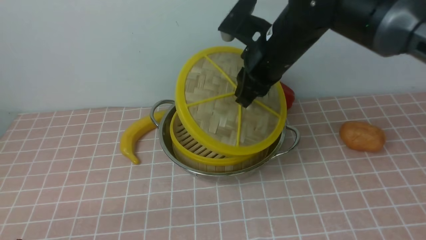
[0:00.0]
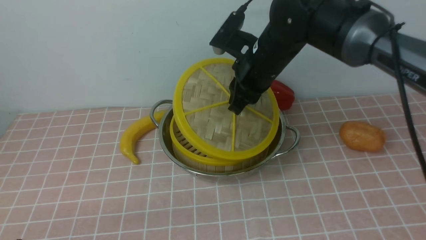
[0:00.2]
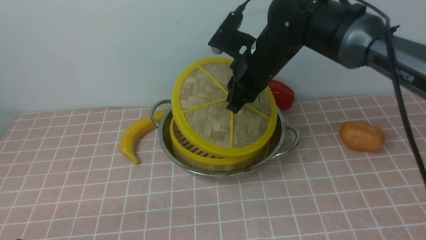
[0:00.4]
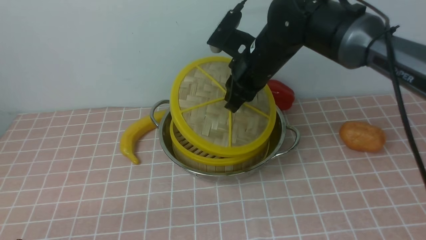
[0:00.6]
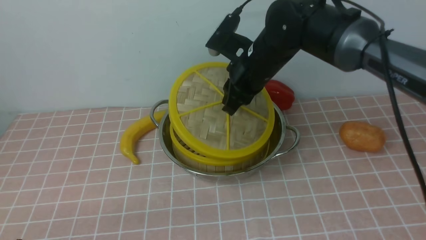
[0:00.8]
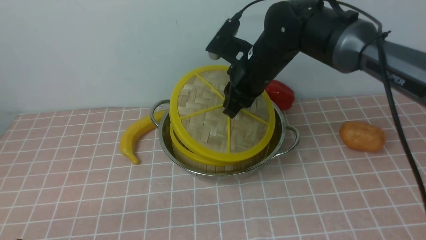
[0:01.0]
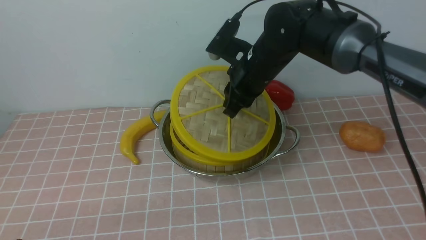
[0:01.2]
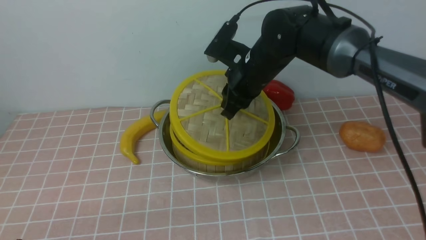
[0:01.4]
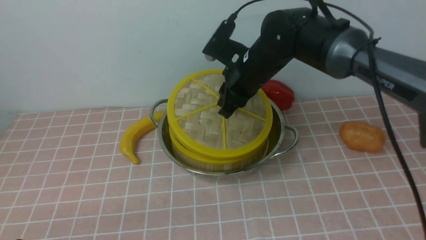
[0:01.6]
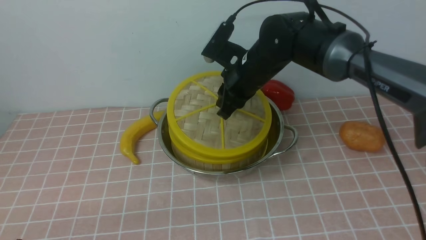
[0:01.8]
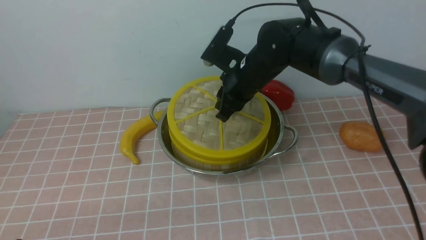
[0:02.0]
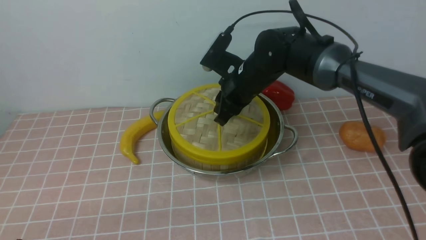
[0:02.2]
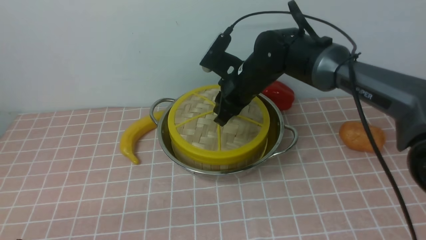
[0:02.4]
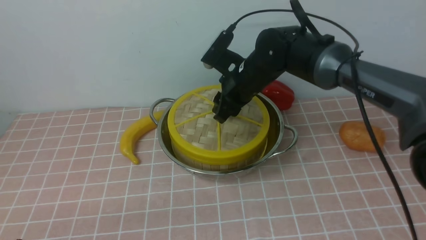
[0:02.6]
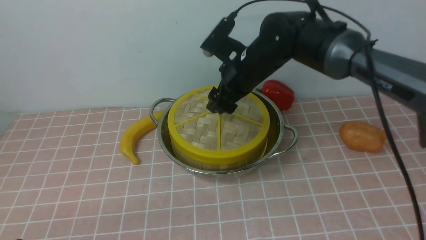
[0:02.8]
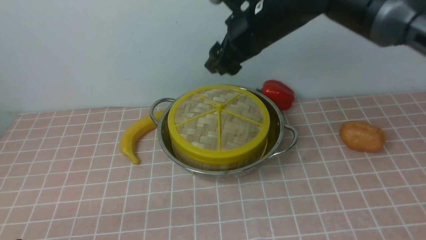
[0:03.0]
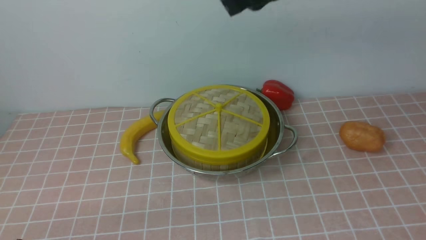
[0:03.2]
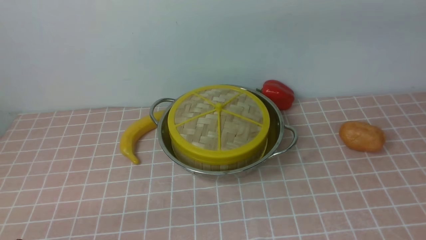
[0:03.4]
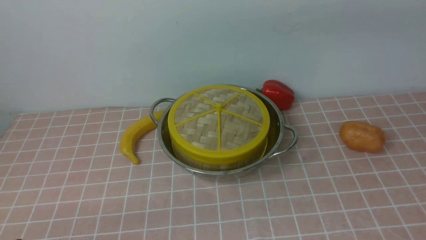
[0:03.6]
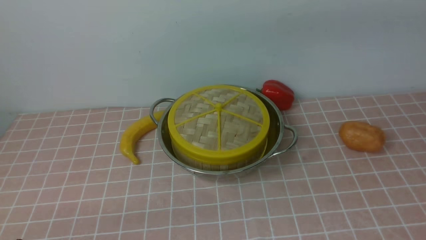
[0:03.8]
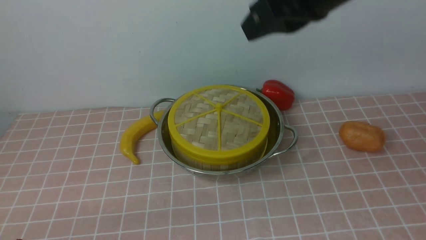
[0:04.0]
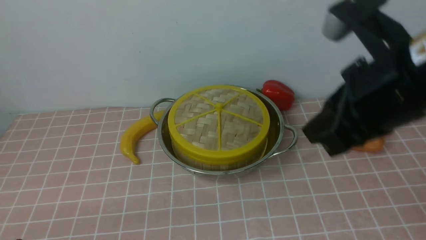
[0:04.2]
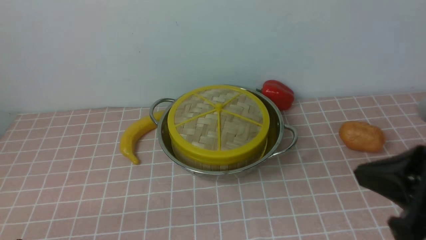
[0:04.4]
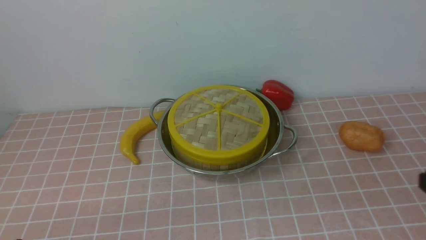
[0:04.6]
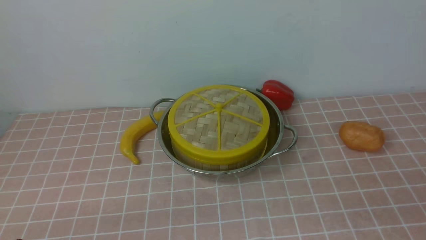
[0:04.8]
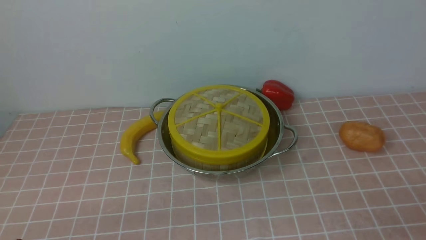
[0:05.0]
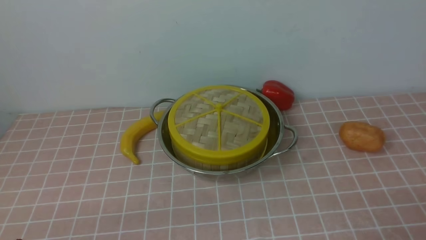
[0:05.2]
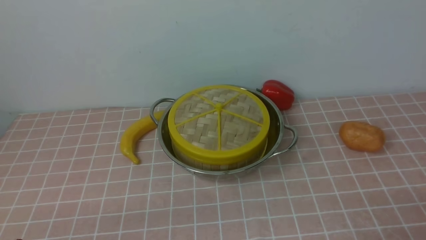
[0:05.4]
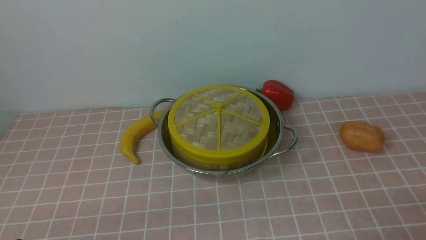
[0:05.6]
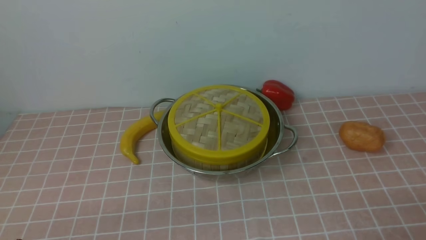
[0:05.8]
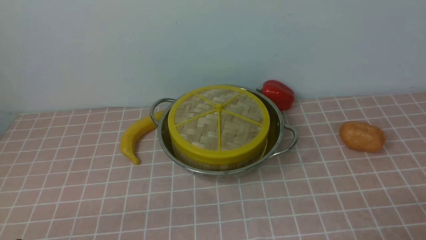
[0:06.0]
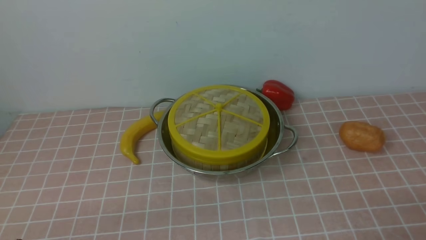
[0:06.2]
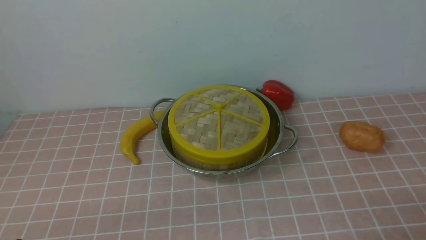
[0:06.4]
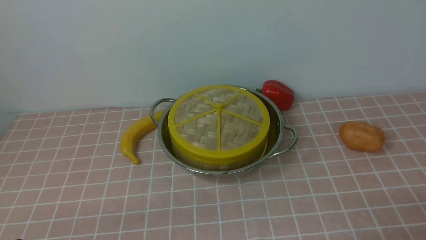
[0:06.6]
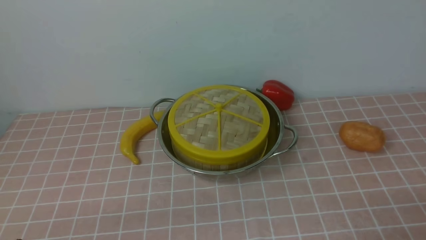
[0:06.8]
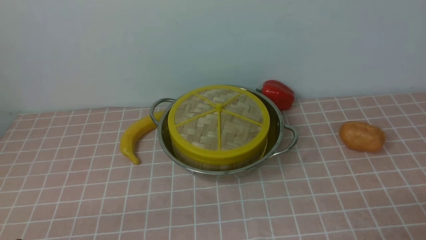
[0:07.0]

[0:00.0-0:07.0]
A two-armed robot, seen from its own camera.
Task of the whole recording: place the steamer in the pot on the pink tablecloth, and put the lid on the steamer.
Step, 0:00.0 to 0:02.8: use the right arm to place the steamer lid on the steamer.
0:00.0 to 0:01.4: The right gripper is displaced downward by some 5 cm.
0:01.4 to 0:02.8: The right gripper opens up.
0:02.8 to 0:04.2: The right gripper goes roughly 25 cm backward, to the right and upward, and closes.
0:04.2 to 0:05.6: The right gripper heads downward, backward and to the right, covering roughly 30 cm, and opens.
0:05.6 to 0:07.0: Both grippers stay about where they are.
